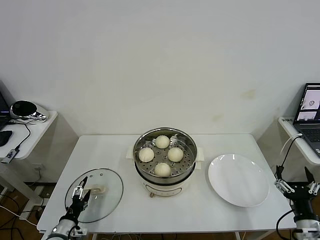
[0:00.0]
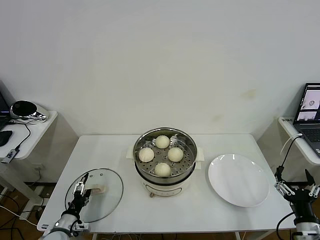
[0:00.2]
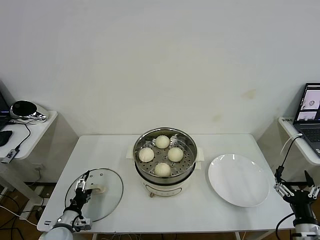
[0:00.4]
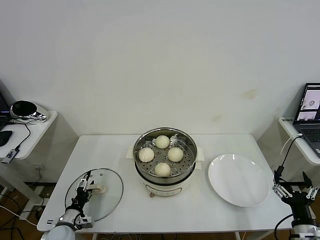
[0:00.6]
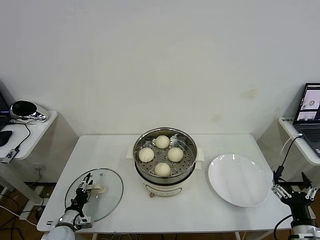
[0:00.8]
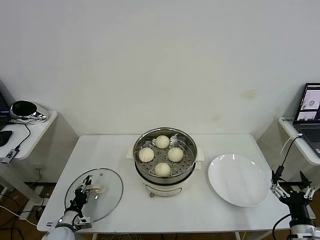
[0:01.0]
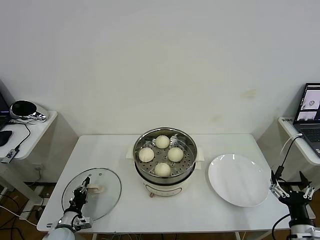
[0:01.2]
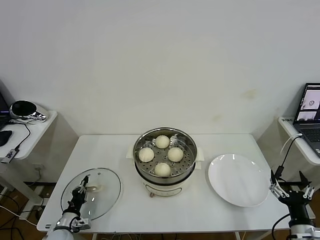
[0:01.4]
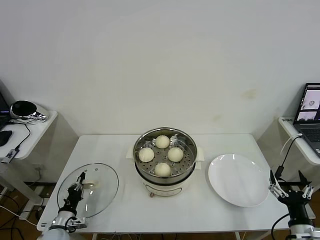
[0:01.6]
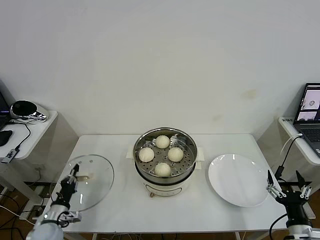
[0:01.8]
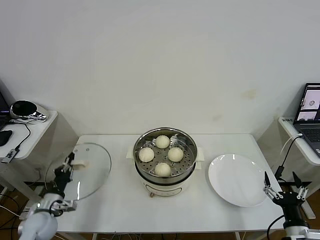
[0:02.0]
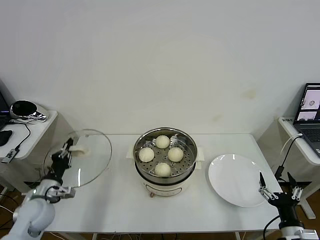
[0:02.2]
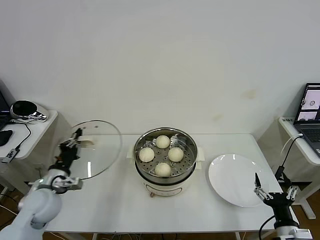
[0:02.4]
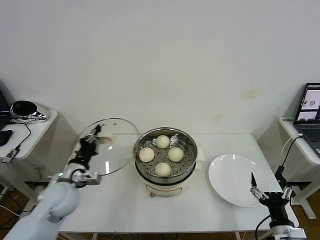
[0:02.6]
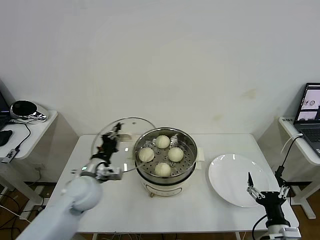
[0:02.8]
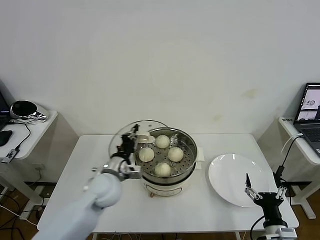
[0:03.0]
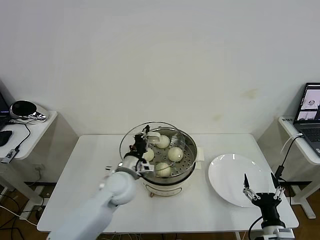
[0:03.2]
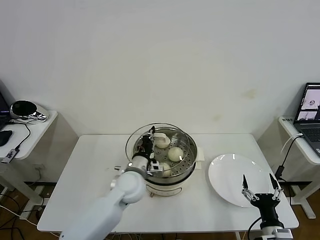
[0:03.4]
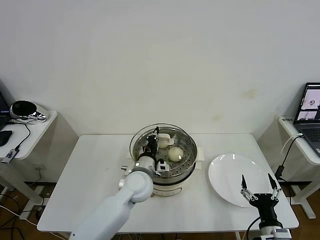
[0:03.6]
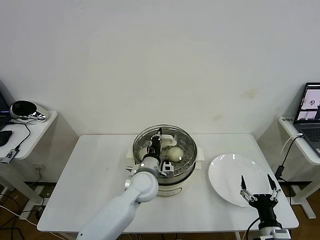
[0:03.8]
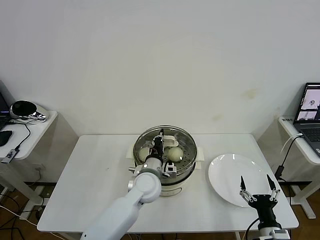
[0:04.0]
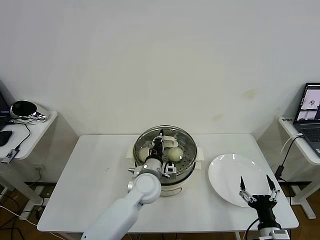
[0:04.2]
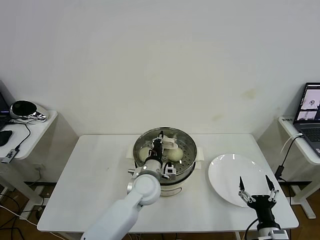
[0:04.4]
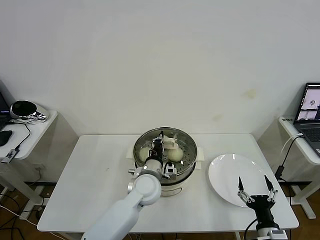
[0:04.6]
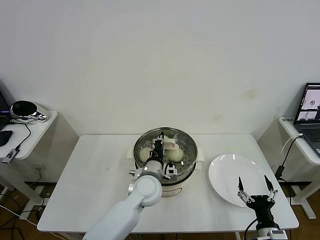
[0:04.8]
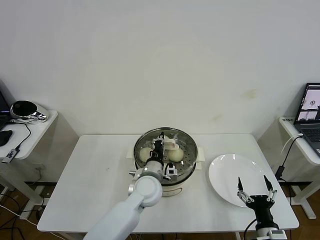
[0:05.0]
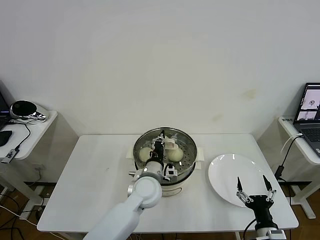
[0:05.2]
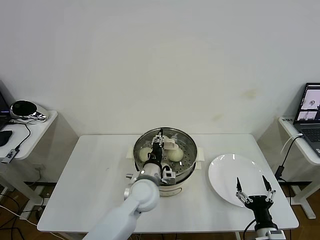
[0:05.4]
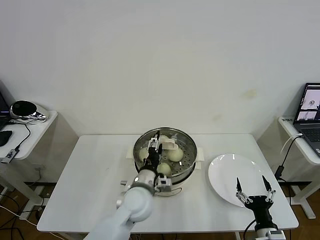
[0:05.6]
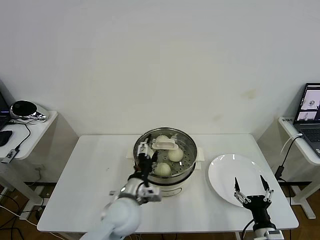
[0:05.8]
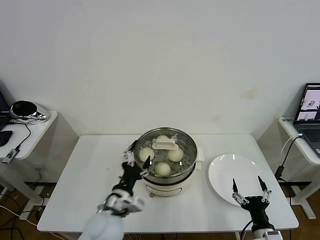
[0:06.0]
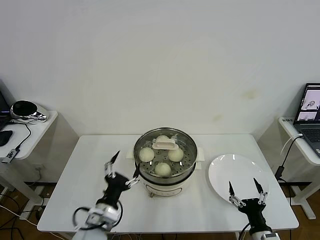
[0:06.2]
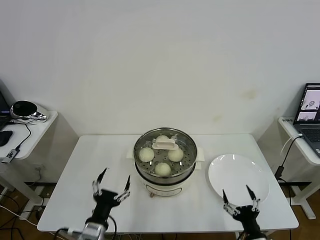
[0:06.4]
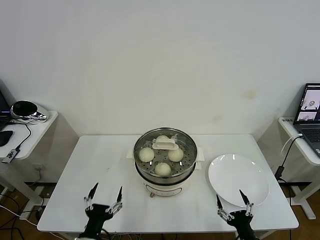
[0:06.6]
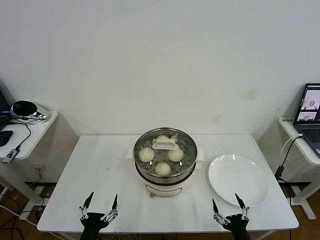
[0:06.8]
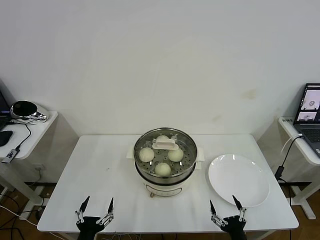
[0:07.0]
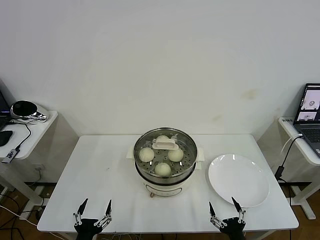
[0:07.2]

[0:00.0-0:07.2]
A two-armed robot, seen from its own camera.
Task of the whole recording: take steamed baozi put them in steamer then cover it.
Step, 1.6 to 5.4 s: Place the pot lid on the steamer with left gripper.
0.0 to 1.4 s: The left gripper moves roughly 5 cm, and closes.
1.4 to 2.8 s: The right gripper is displaced to the left by about 5 cm. The left gripper heads upward and to the right, covering approximately 25 cm.
2.8 to 4.4 s: The left gripper goes some 20 cm to the right.
4.4 to 5.8 s: The left gripper shifts approximately 10 cm backward, and opens.
5.8 to 7.2 s: The right gripper goes about 5 cm to the left; the left gripper moves backward, to the left and downward, about 25 cm.

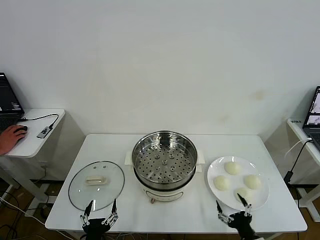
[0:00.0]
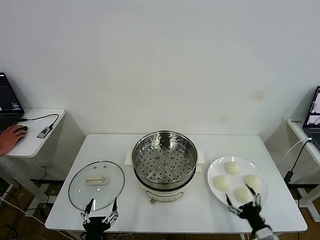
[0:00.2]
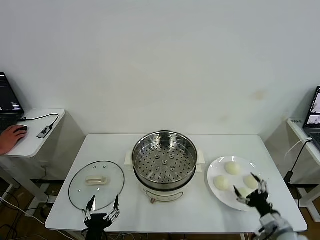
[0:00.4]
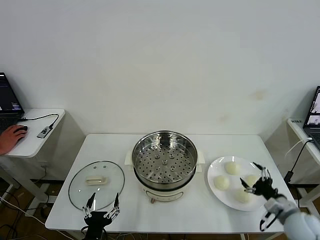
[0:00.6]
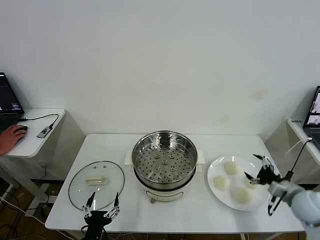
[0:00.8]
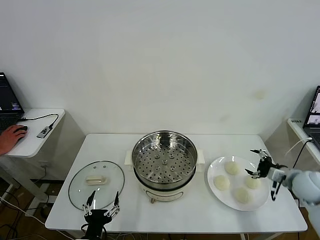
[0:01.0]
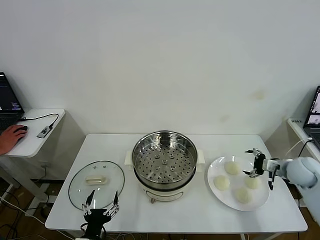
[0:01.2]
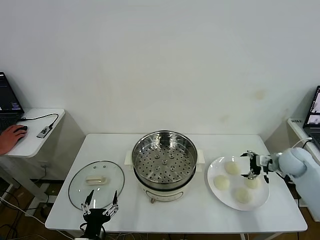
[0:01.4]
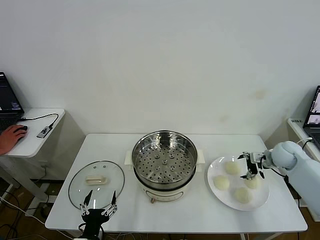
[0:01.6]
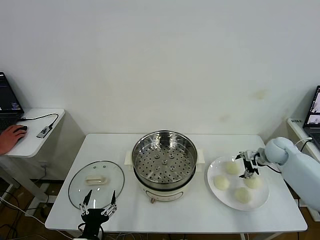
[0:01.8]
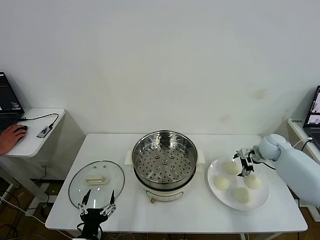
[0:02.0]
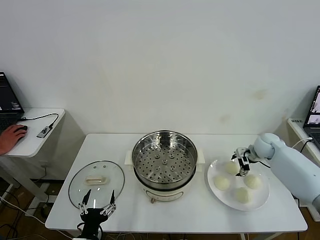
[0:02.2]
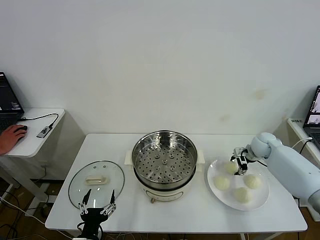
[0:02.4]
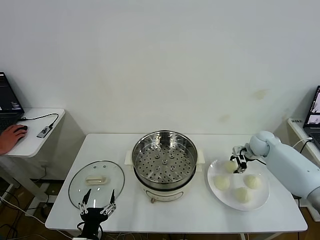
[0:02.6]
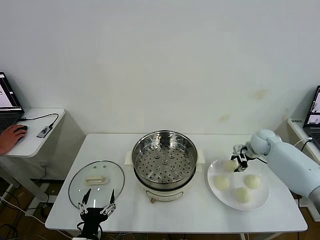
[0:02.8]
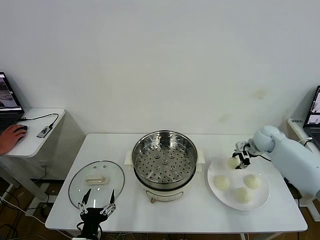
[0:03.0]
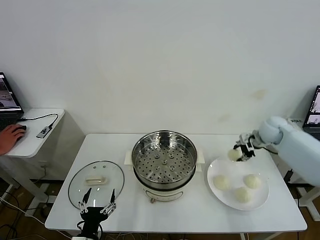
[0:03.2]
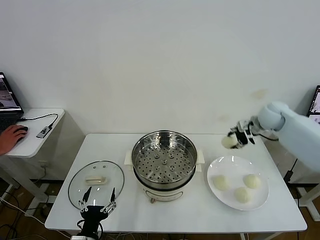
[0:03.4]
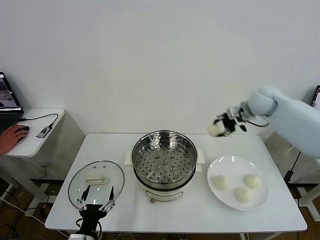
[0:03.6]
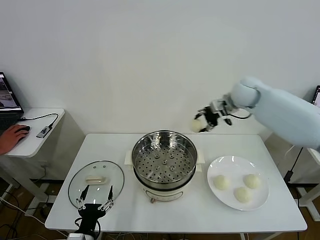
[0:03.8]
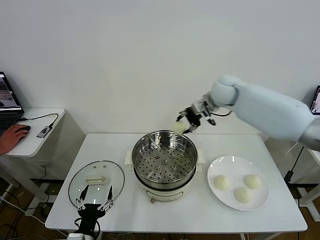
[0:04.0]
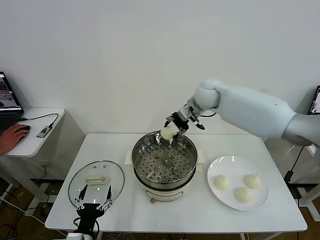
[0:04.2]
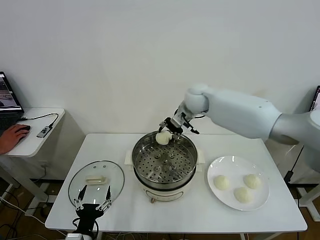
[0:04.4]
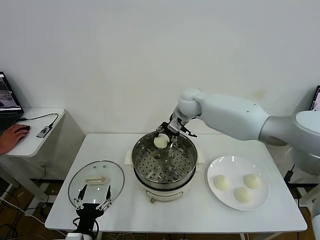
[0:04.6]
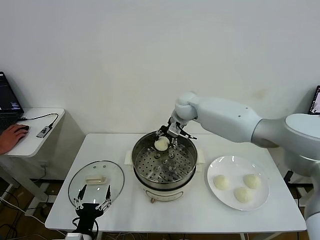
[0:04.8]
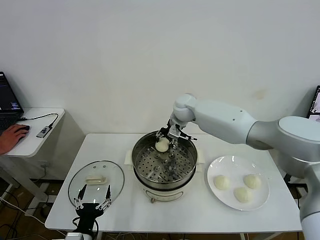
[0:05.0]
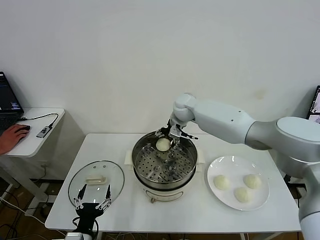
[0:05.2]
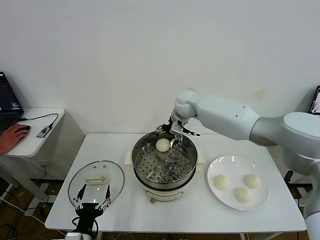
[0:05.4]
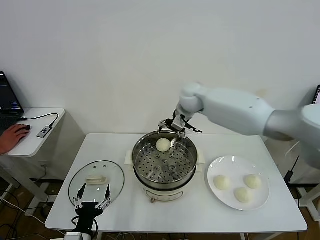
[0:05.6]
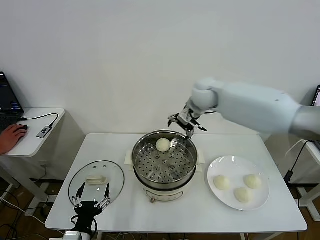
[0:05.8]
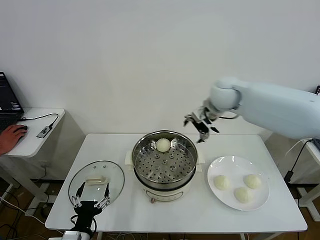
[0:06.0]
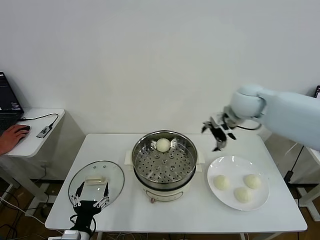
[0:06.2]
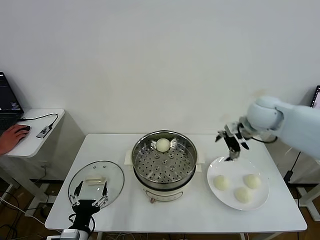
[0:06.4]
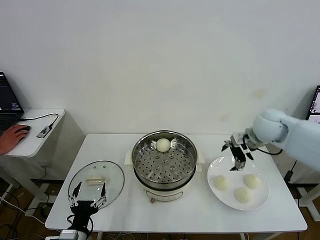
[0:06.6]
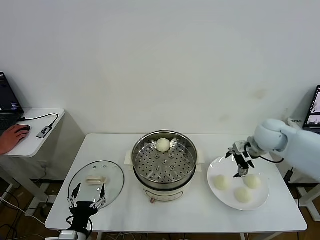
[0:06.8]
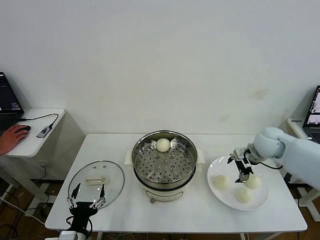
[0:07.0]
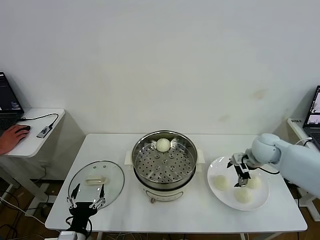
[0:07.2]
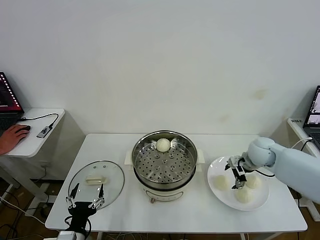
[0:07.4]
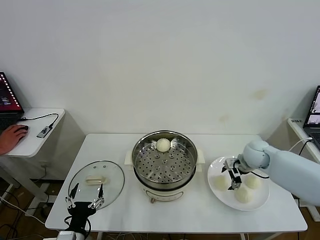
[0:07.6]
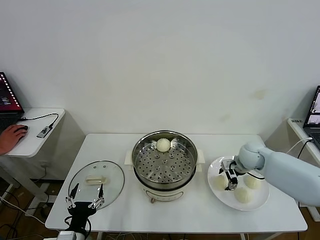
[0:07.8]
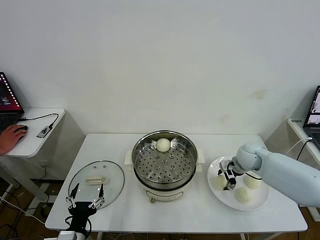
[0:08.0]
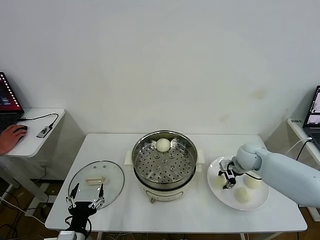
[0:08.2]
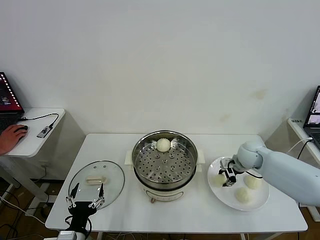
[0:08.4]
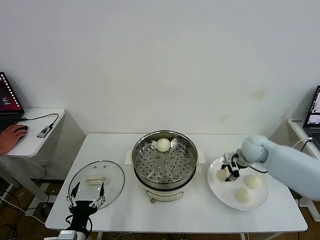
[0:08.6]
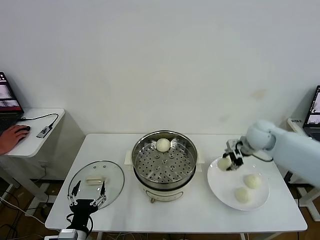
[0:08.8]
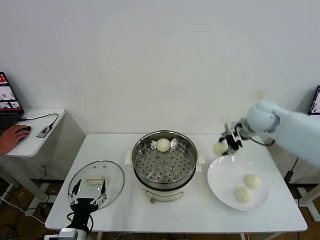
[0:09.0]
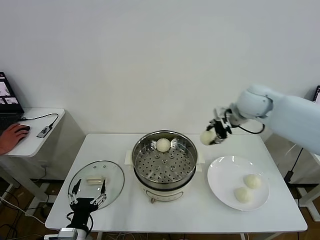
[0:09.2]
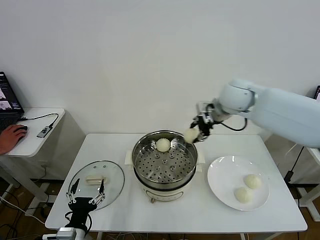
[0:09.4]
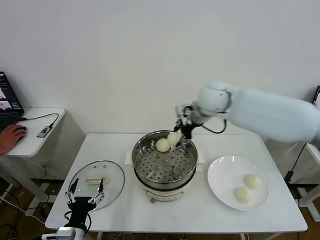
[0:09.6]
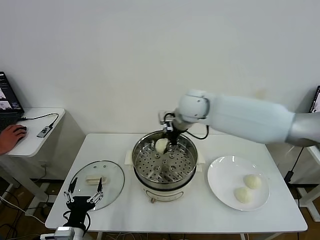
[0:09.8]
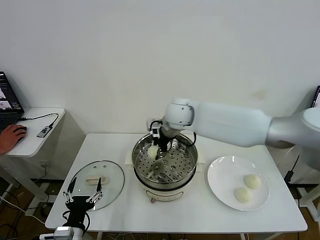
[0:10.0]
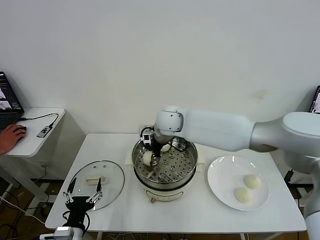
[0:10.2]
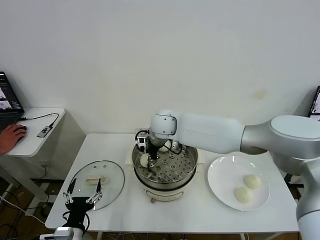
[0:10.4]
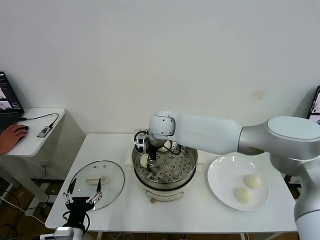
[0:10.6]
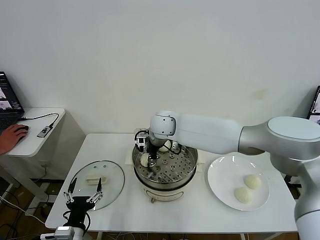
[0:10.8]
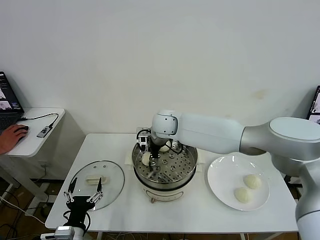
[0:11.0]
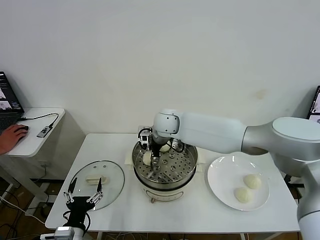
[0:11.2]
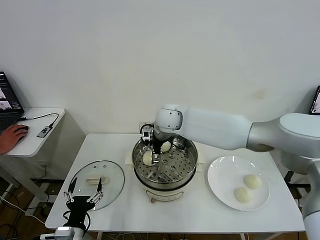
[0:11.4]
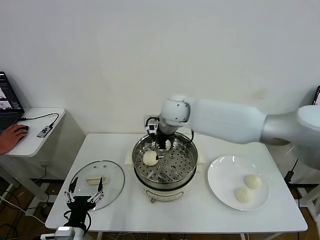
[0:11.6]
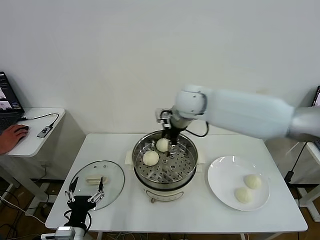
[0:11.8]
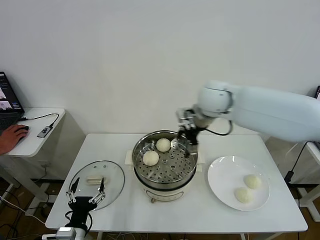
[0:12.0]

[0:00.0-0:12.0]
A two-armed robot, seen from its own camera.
Task of the whole recording: take steamed baozi put them in steamer then cover it.
Step, 0.0 to 2.4 s: Grasp the baozi in the plate with right gripper.
Step, 2.6 to 5.2 s: Place the baozi on the steamer with right gripper.
Step, 5.4 to 8.0 s: Grasp the baozi in the plate with right gripper.
Step, 8.2 to 11.2 s: Place the baozi on the steamer with right gripper.
1.6 to 3.0 s: The right gripper travels forward by approximately 5 cm, and closes.
3.0 to 4.4 s: The right gripper travels to the left by about 30 cm.
4.4 to 6.0 s: The right gripper goes about 15 cm to the right, backward and upward, and opens up.
6.0 to 7.6 s: The right gripper moves downward and to the right, about 25 cm.
7.6 to 9.0 s: The right gripper shifts some 20 cm upward, and closes up.
9.0 to 10.4 s: The right gripper moves to the left, roughly 30 cm.
10.4 to 12.0 s: The right gripper shifts about 20 cm to the right and upward, and opens up.

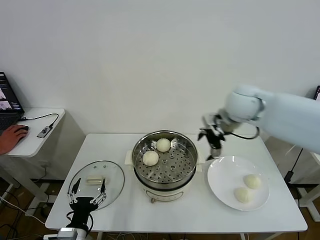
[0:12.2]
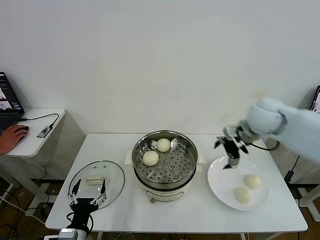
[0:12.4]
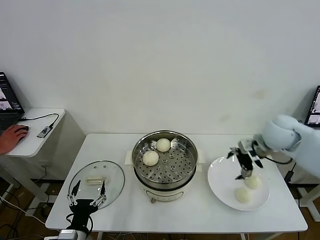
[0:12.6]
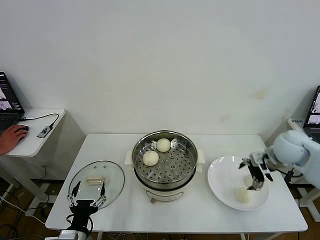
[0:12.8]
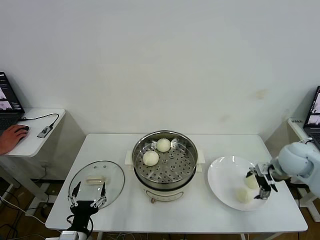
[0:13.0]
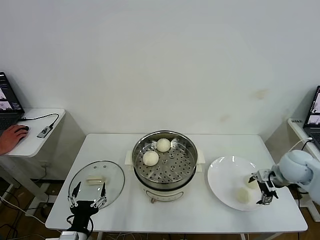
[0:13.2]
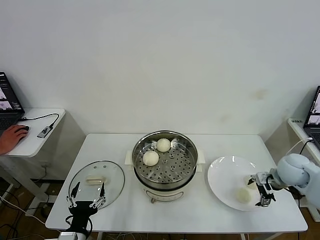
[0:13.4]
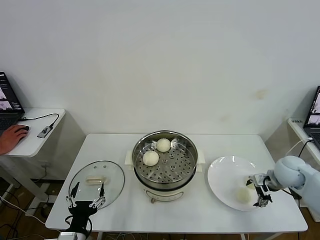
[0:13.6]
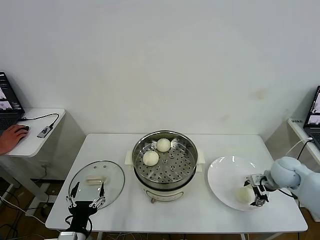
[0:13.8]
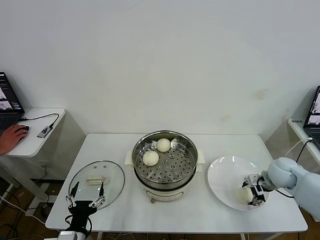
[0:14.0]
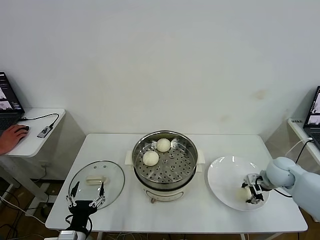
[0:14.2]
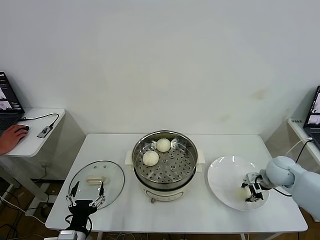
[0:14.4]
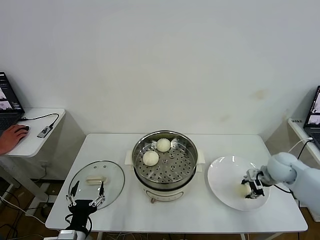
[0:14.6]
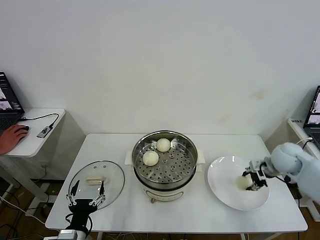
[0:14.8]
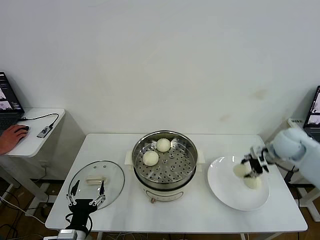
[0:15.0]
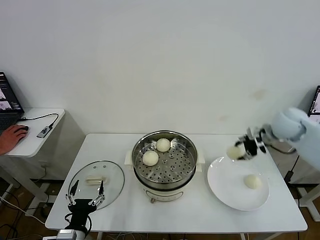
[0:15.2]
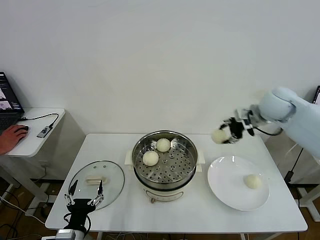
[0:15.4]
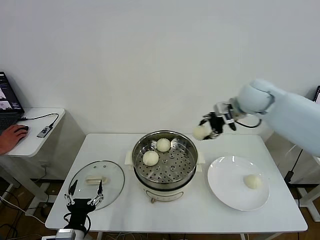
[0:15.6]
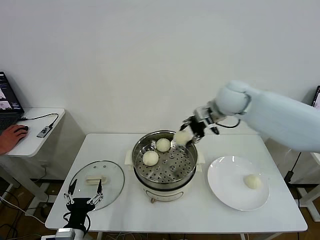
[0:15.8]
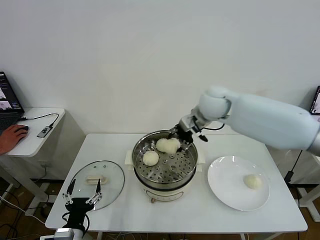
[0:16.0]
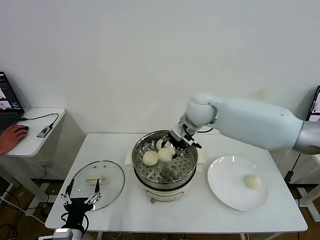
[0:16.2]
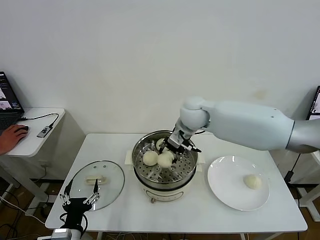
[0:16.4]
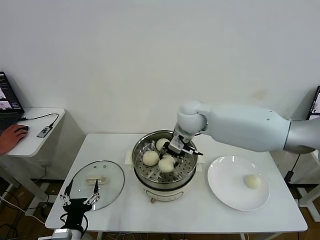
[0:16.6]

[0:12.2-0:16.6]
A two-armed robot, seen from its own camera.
Task of the whole recording: take steamed baozi put them in steamer then cover it.
Step, 12.2 to 14.2 s: Grasp the baozi in the plate with right gripper.
12.2 to 13.6 s: The right gripper moves downward and to the right, roughly 25 cm.
13.6 to 15.2 s: The right gripper goes roughly 20 cm upward and forward, and closes up.
15.2 to 16.6 s: The right gripper goes some 30 cm to the left.
